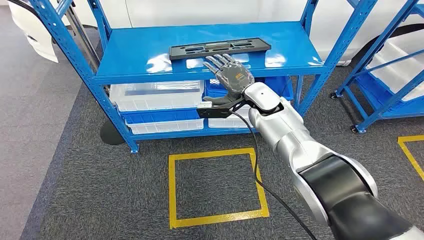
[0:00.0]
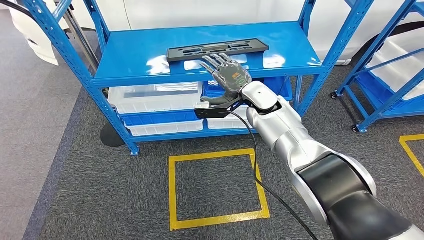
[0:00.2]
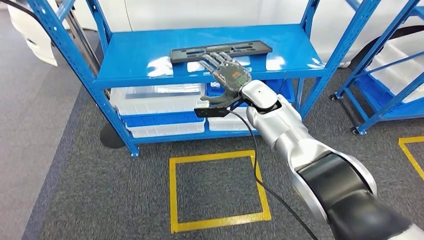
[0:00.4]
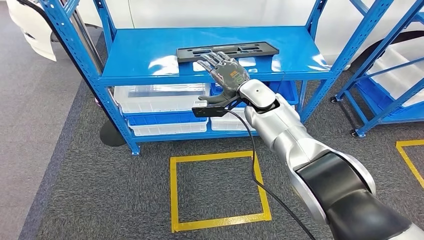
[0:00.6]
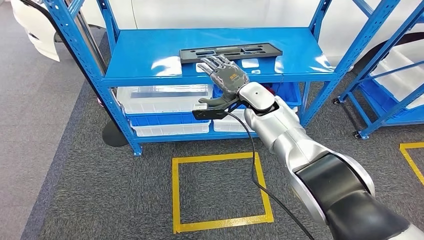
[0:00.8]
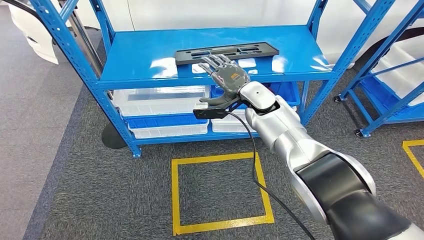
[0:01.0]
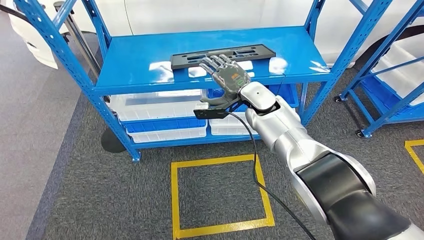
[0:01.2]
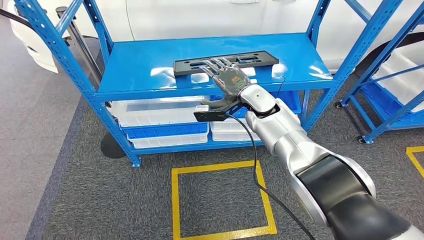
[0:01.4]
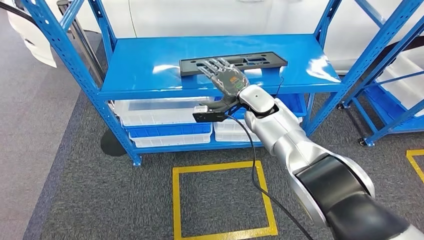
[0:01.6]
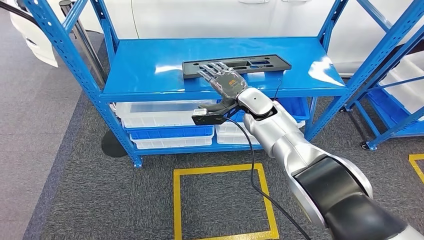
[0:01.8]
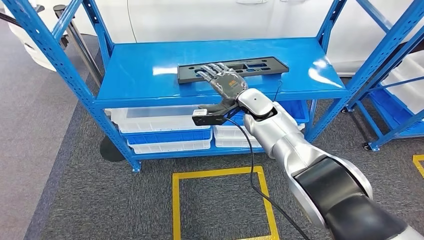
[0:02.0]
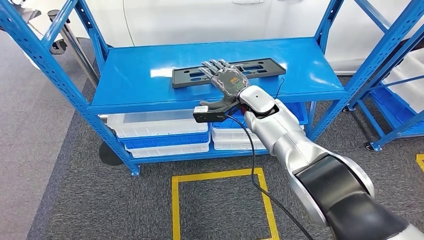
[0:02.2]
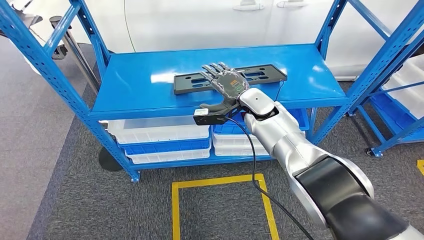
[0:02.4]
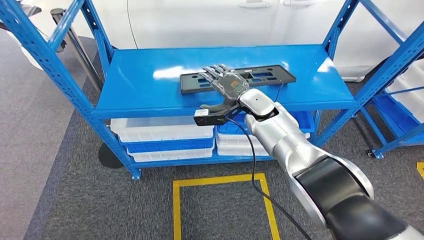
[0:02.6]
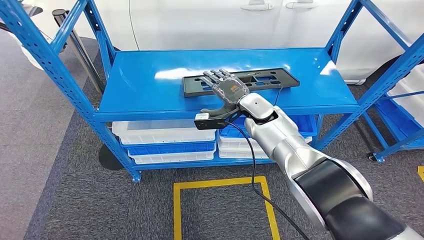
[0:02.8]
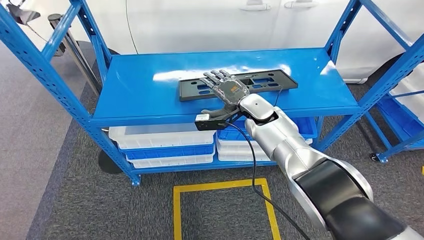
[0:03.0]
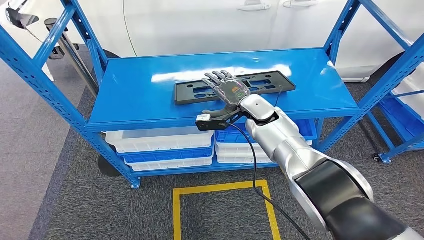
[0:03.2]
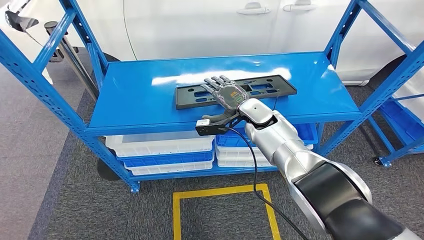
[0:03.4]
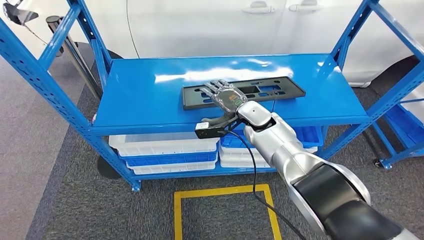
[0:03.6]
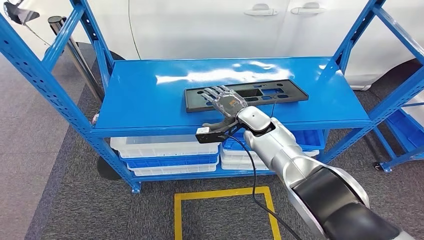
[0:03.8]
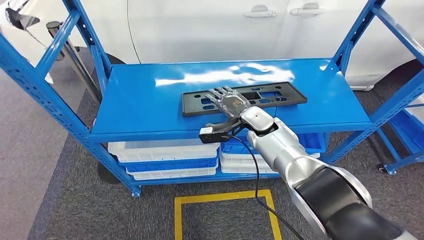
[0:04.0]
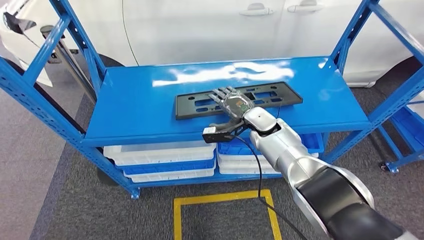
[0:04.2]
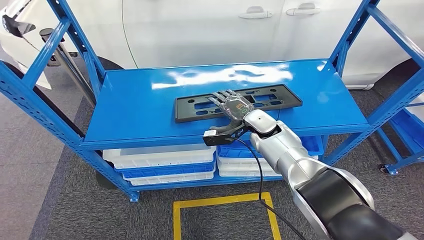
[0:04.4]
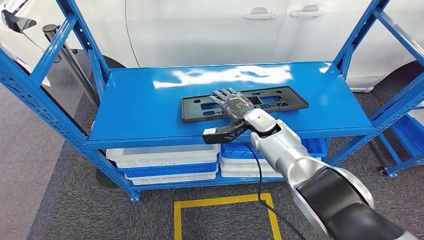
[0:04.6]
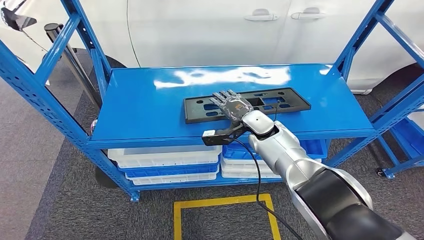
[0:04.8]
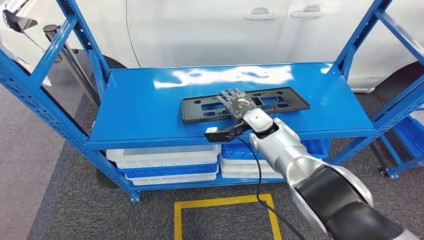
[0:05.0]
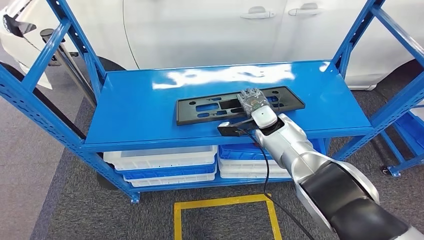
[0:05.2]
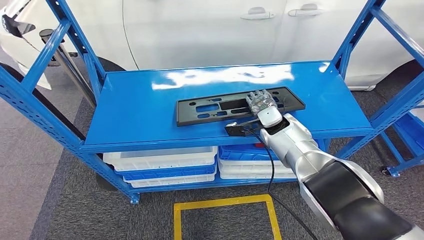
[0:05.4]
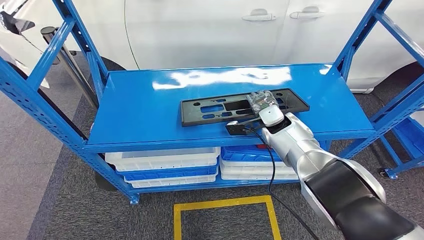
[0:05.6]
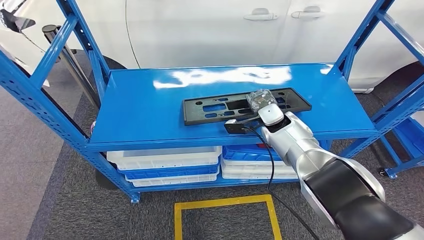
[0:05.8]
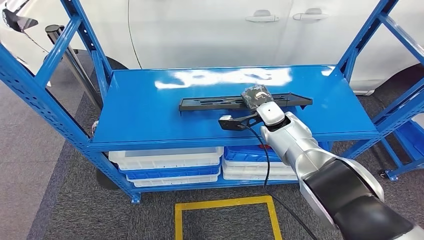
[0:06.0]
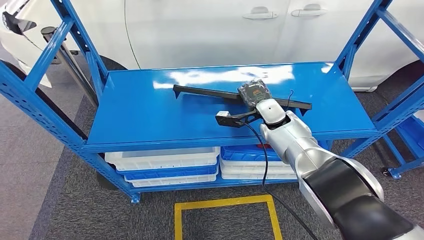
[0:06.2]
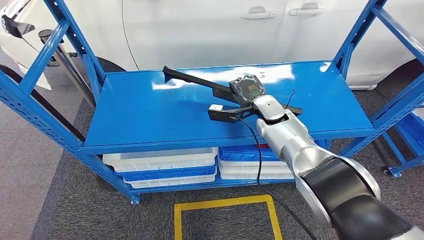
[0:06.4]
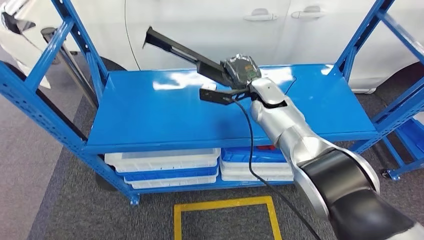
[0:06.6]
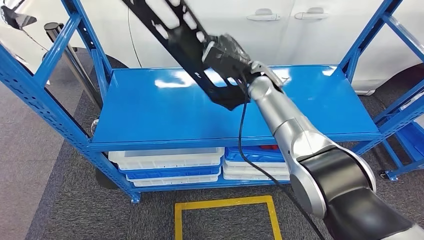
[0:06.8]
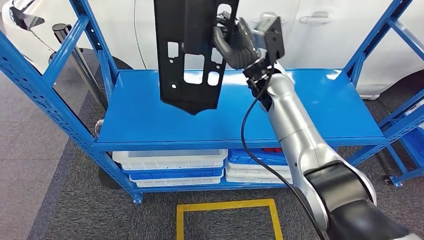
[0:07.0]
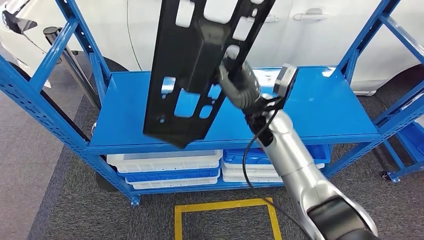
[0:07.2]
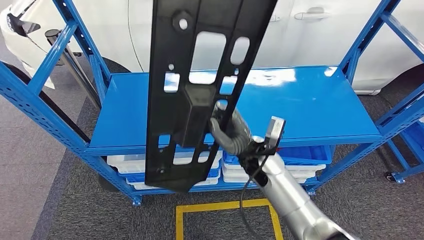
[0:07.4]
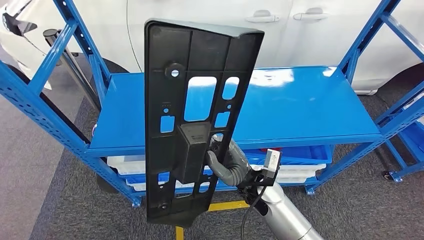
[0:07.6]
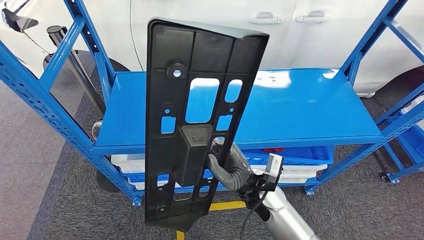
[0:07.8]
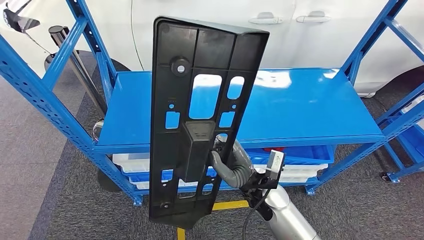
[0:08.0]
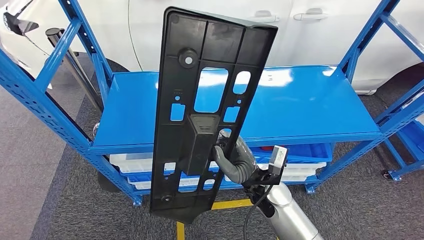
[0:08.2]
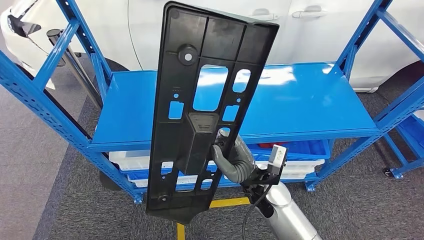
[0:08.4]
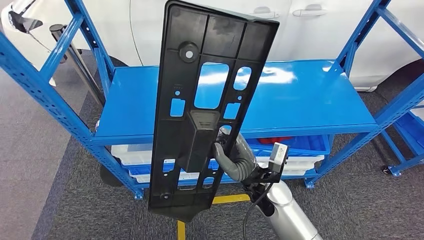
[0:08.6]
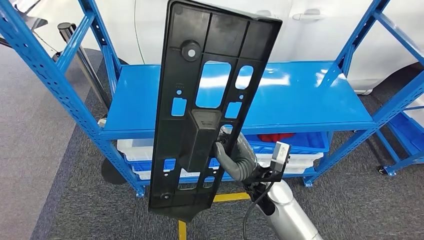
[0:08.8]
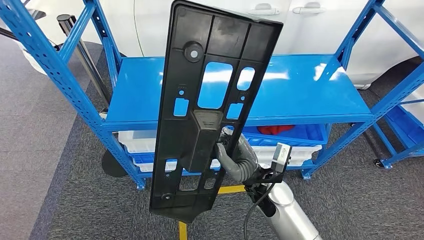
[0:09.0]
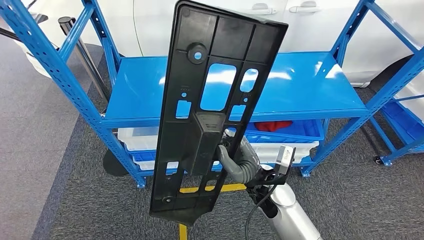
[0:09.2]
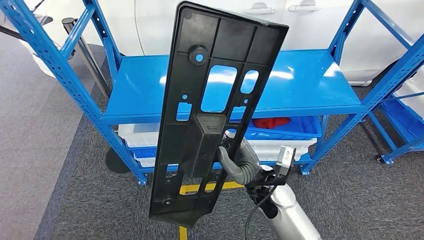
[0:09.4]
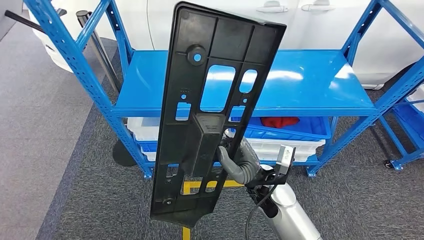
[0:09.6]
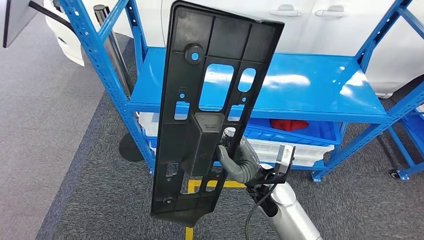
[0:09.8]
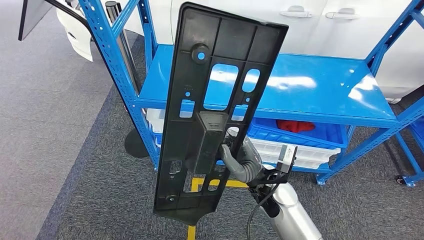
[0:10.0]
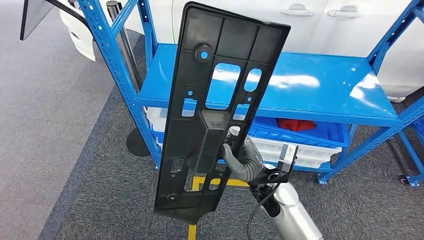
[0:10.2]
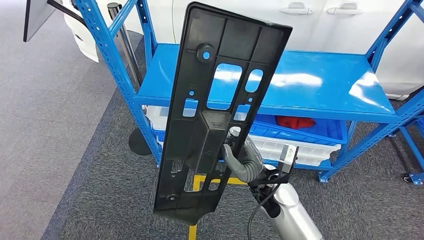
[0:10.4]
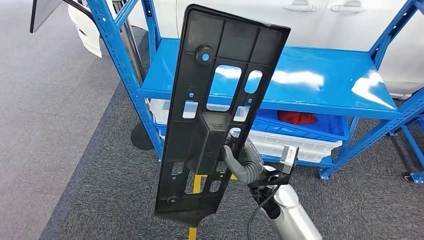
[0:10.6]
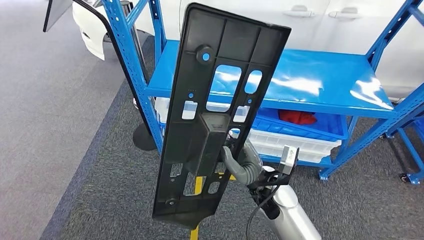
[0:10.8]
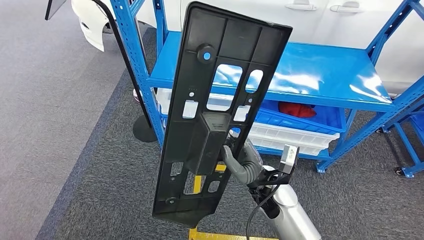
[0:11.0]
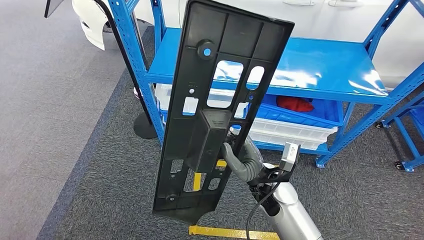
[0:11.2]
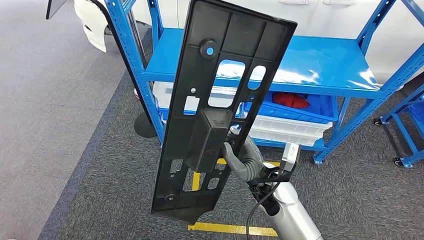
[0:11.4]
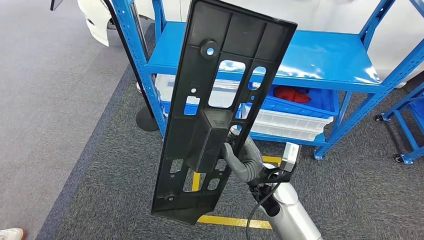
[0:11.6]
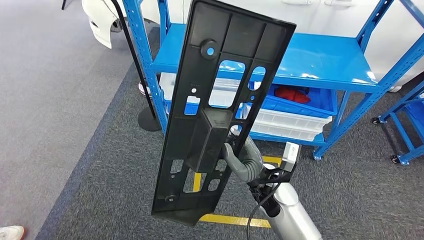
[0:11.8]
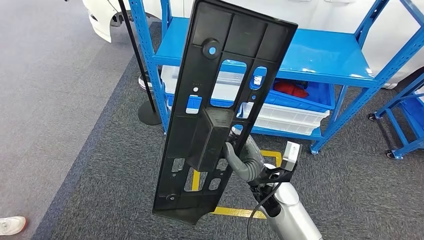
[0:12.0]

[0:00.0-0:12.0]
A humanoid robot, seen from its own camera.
Step, 0:00.0 to 0:06.8: Pick up the large material from the shelf.

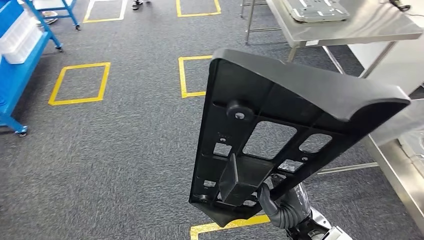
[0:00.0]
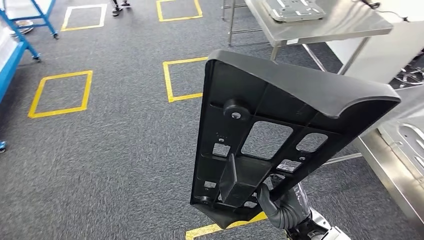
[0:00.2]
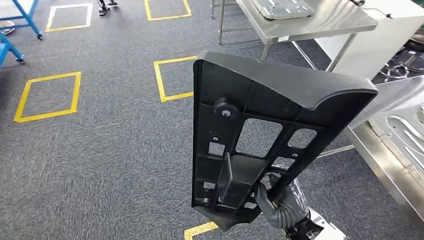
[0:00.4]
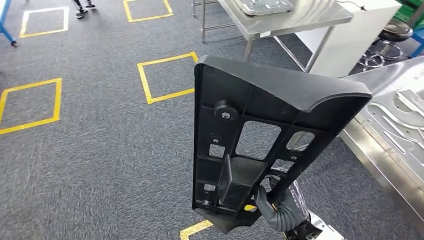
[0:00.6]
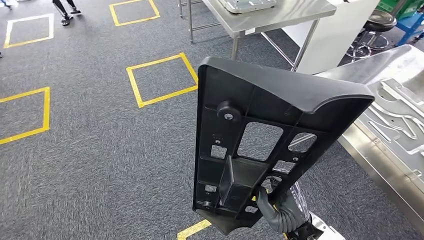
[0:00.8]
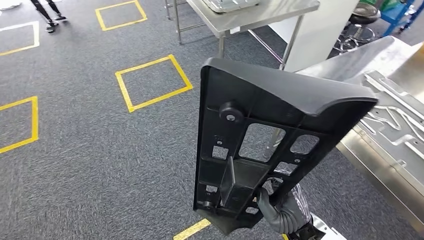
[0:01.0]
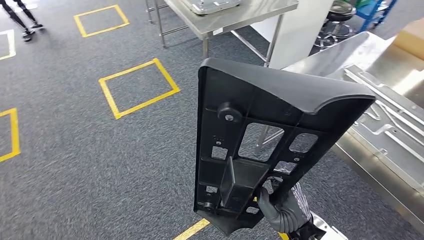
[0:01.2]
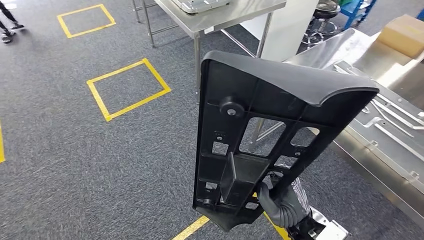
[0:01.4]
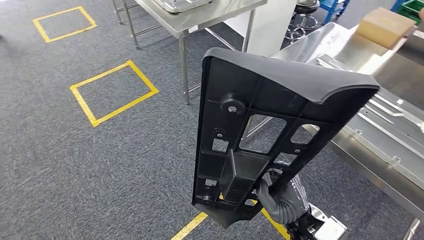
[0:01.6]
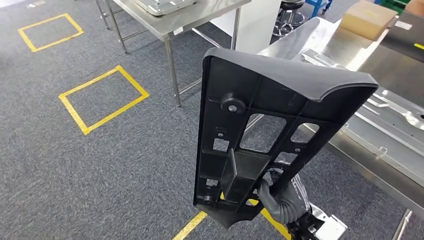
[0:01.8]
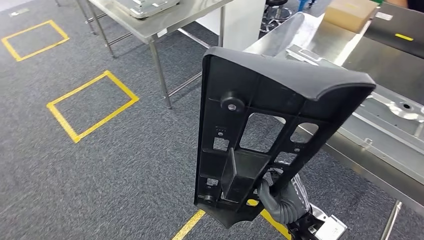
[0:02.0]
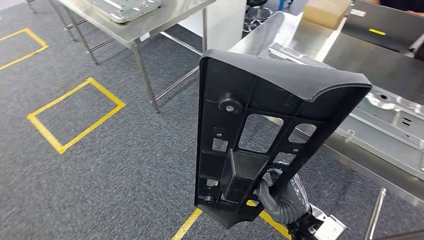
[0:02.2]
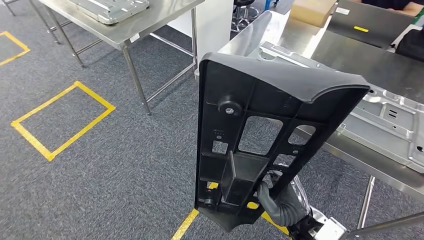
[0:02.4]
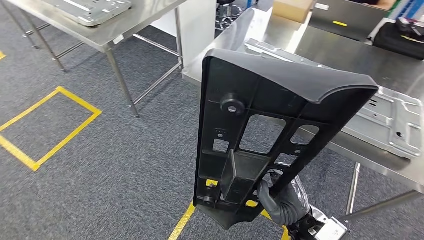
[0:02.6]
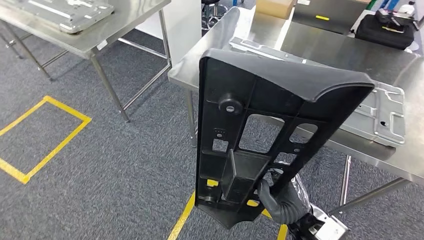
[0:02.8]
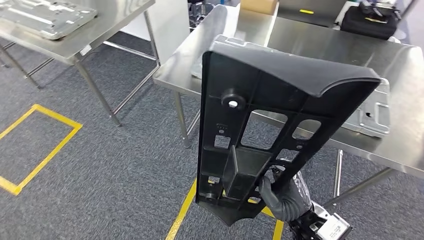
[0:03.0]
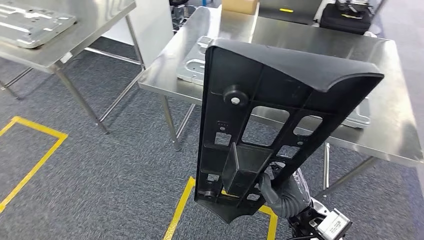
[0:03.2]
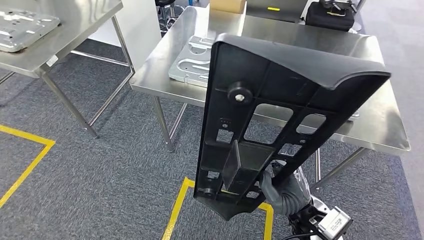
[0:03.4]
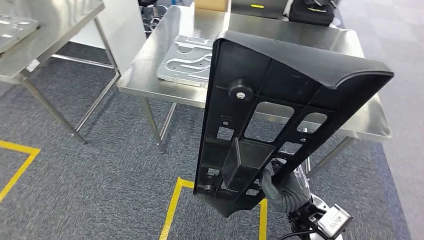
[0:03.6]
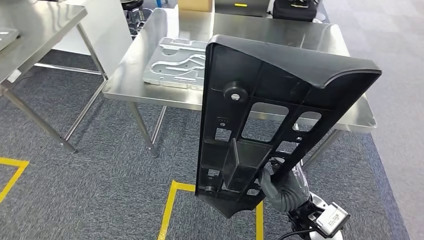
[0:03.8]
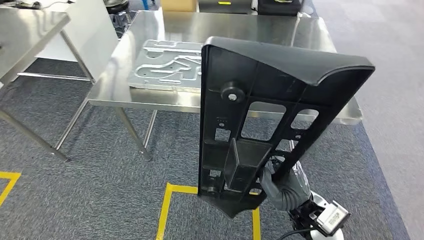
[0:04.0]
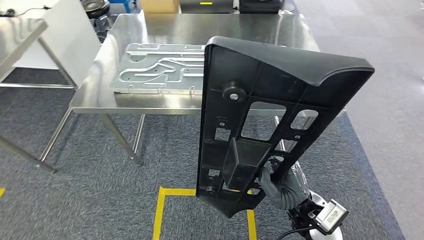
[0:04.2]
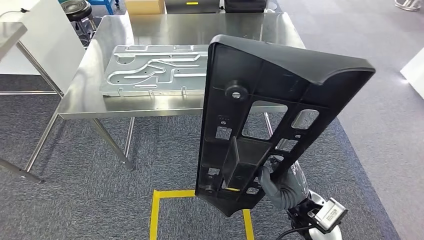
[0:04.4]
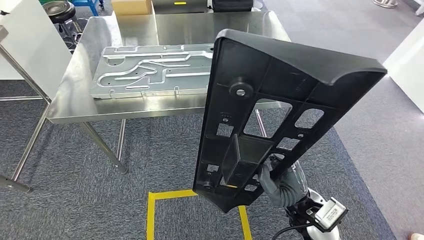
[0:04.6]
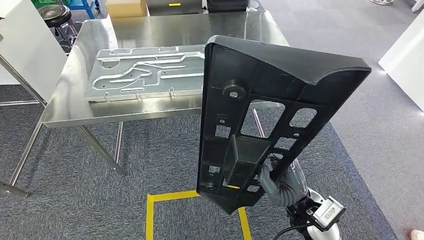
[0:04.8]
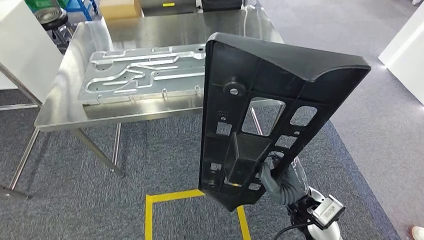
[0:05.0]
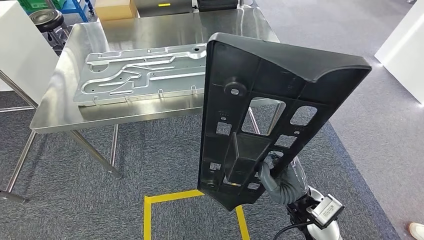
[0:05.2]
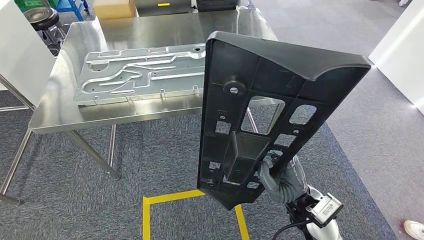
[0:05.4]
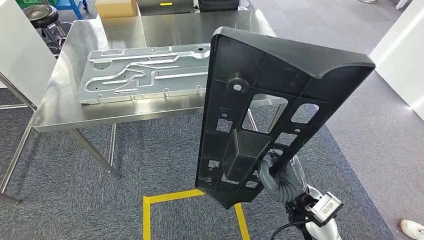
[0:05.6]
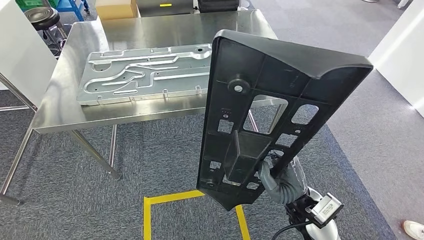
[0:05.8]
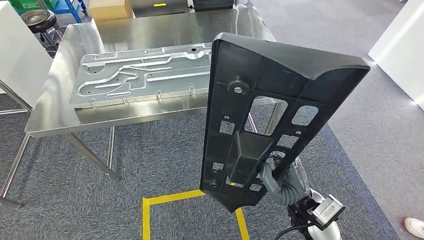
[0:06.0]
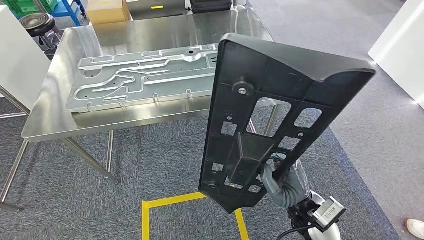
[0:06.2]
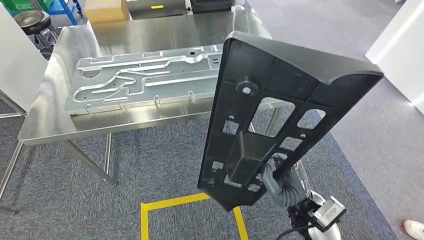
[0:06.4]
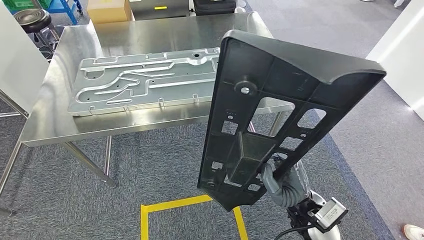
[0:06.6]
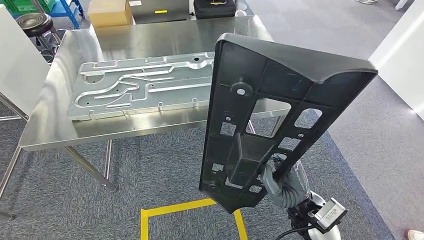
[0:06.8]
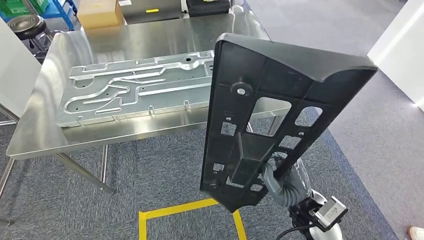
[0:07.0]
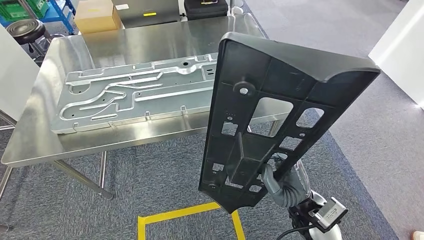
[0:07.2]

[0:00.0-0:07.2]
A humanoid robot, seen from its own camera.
Step, 0:00.0 to 0:03.4: Move the large material to the workbench.
